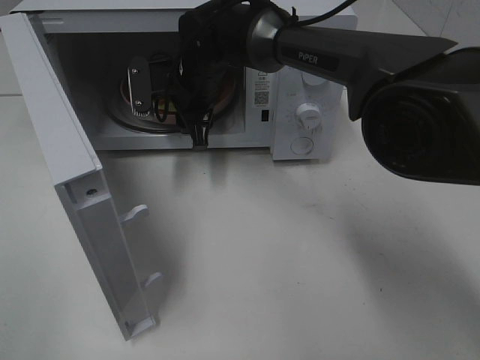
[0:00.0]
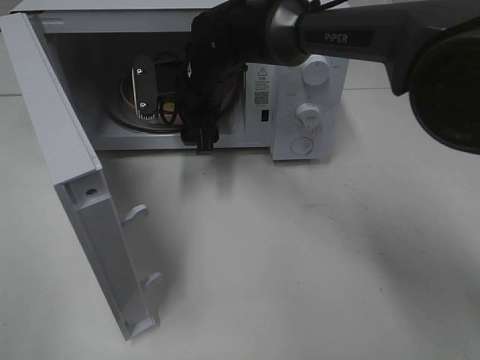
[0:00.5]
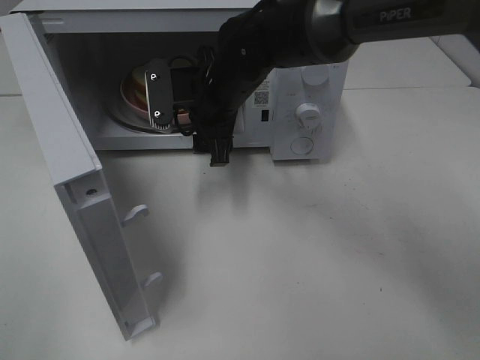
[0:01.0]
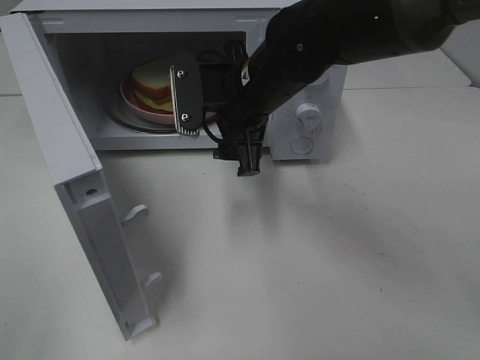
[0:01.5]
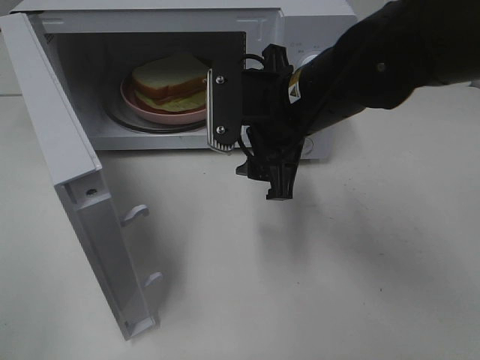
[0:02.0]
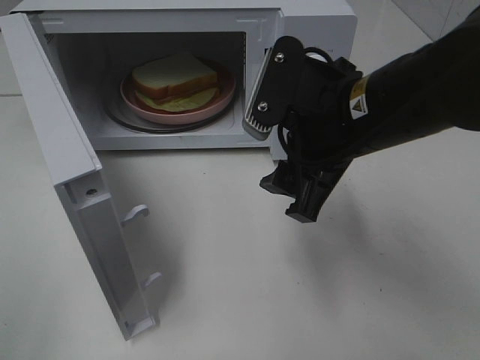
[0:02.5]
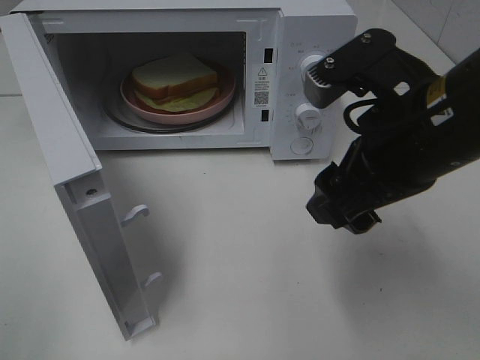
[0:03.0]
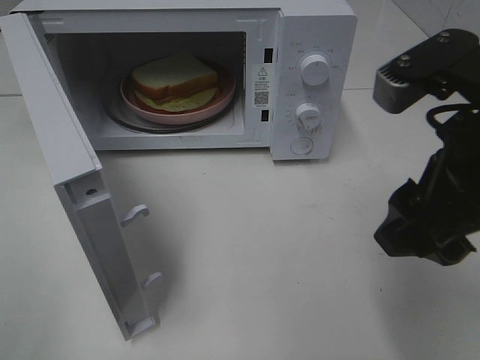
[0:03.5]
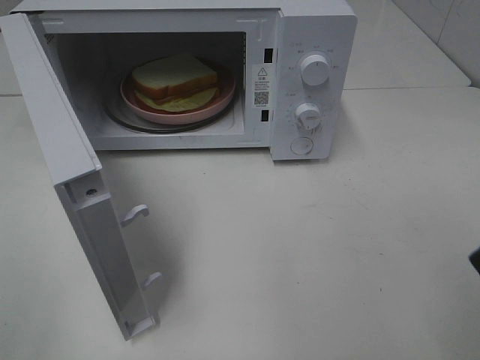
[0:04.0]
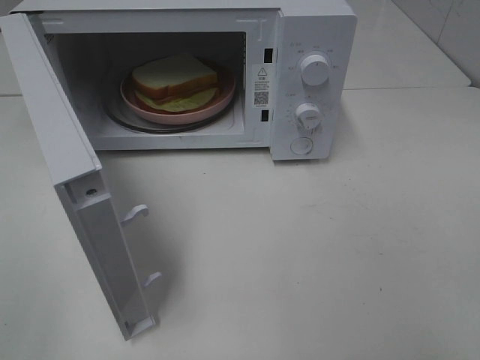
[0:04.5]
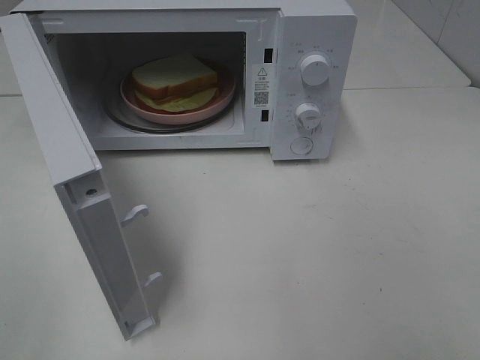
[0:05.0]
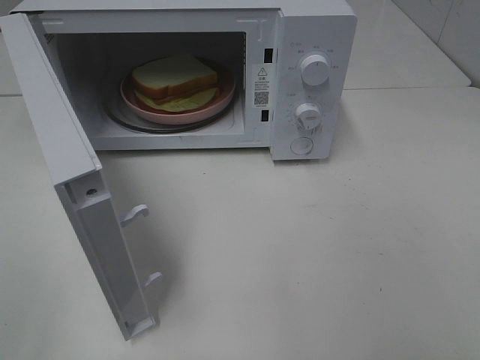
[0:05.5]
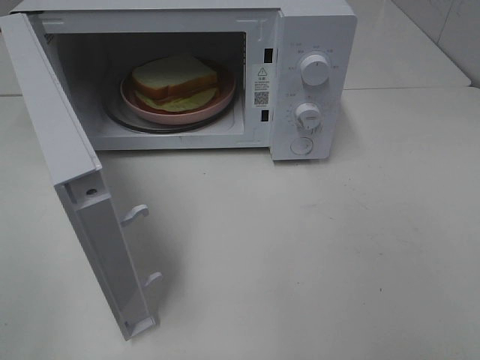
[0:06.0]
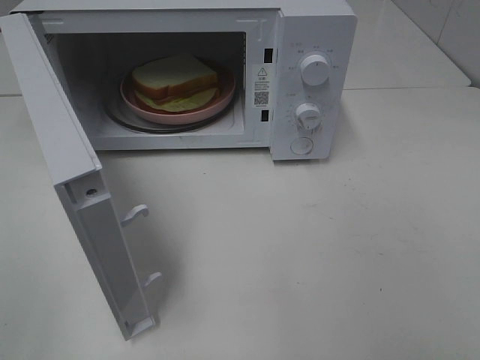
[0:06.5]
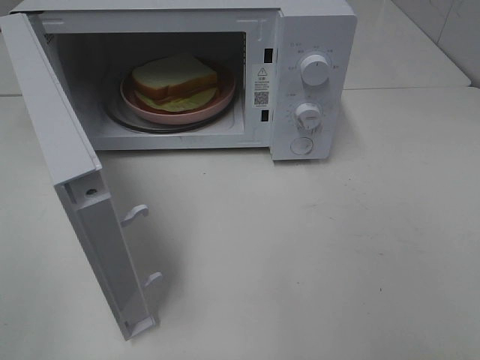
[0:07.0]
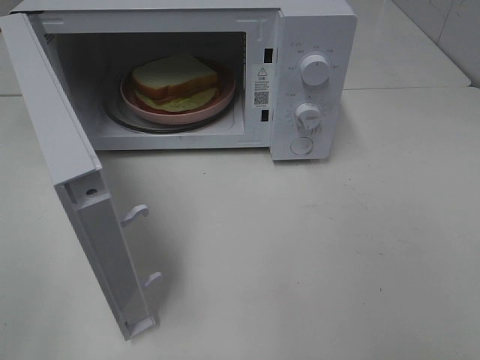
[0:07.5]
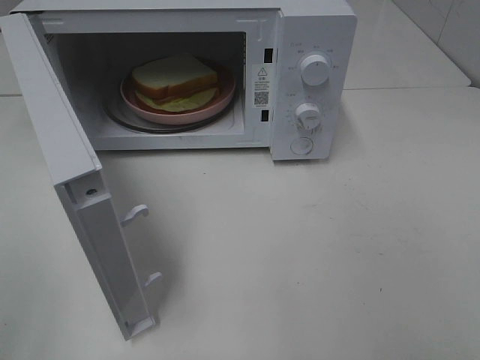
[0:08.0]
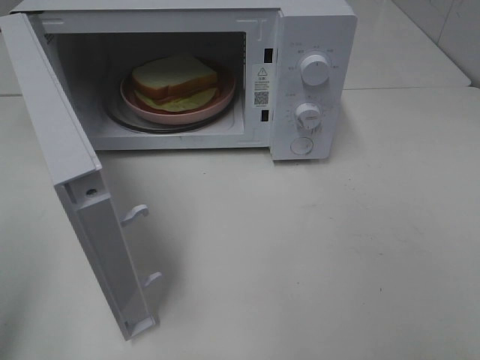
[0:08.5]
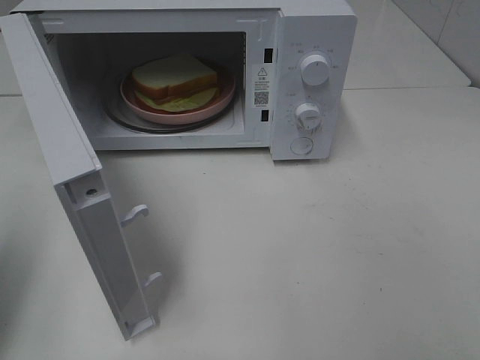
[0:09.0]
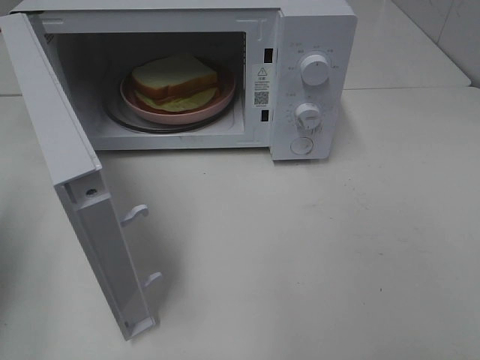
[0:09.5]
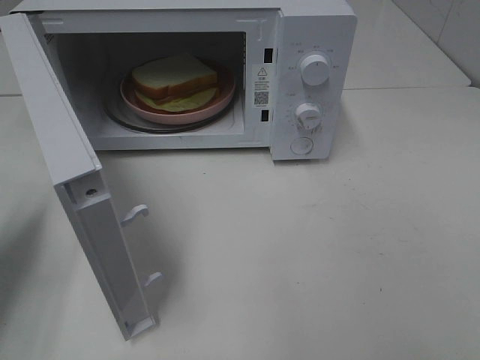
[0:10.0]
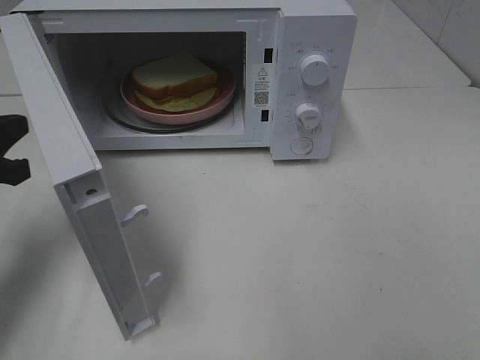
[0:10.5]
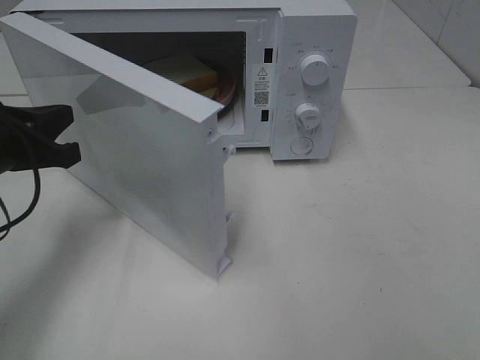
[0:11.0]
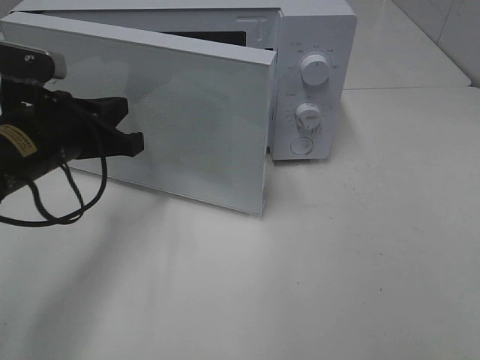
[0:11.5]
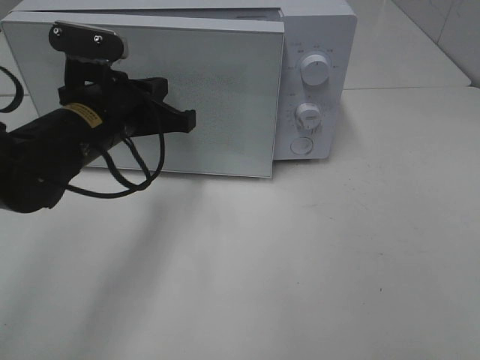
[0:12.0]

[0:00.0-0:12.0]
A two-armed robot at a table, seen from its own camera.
Task of the whole recording: Heat Sandwich.
0:00.0 to 0:02.0: The right gripper heads backward and to the right, covering about 20 cm.
0:02.0 to 0:04.0: The right gripper travels backward, to the right and upward by about 25 cm.
0:04.0 to 0:06.0: The right gripper goes approximately 15 cm backward and to the right.
0:08.0 to 0:10.0: The left gripper goes roughly 20 cm forward and downward, and closes up.
0:10.0 to 0:12.0: The left gripper goes approximately 20 cm to the right and forward.

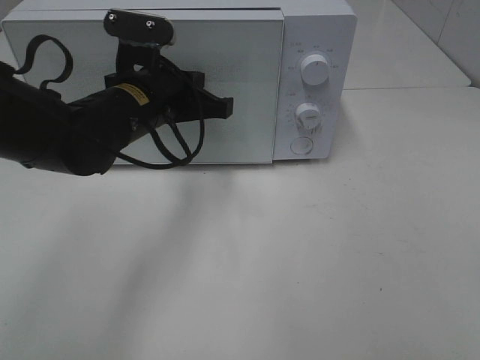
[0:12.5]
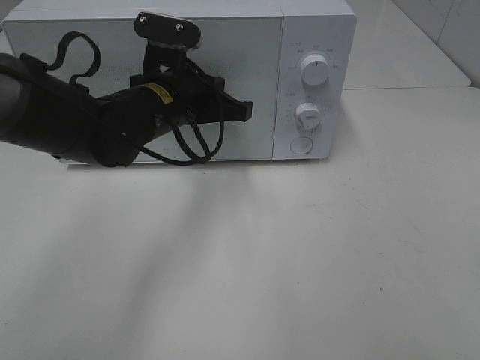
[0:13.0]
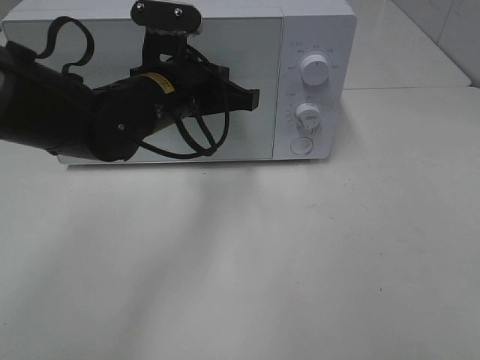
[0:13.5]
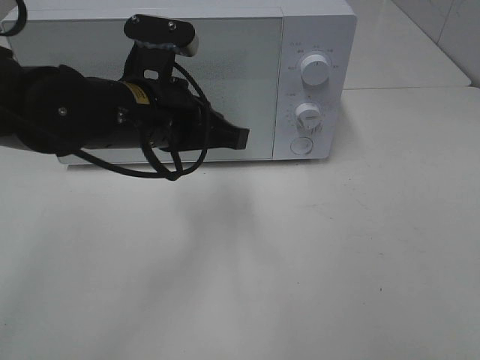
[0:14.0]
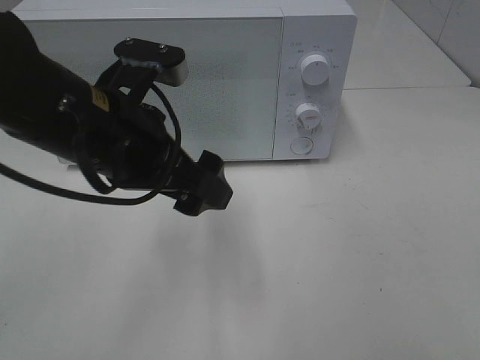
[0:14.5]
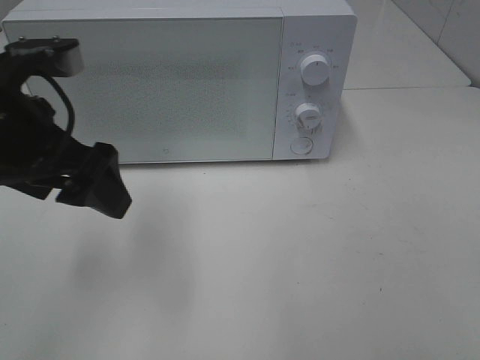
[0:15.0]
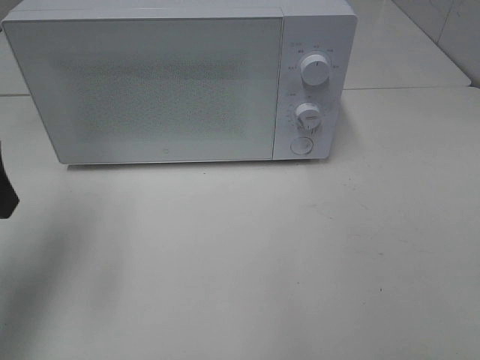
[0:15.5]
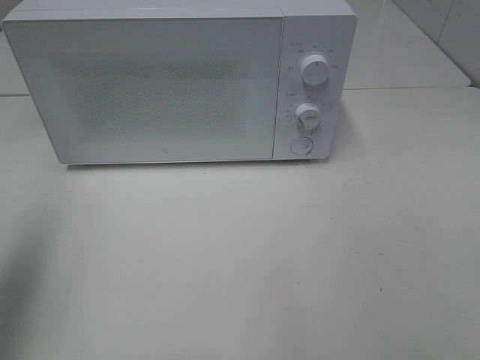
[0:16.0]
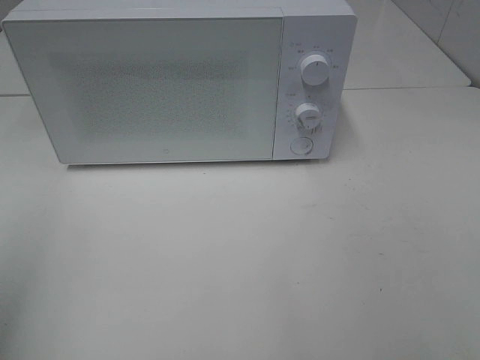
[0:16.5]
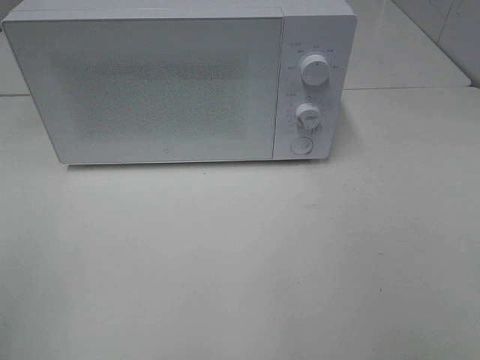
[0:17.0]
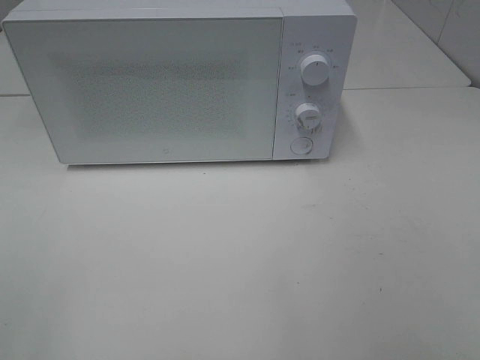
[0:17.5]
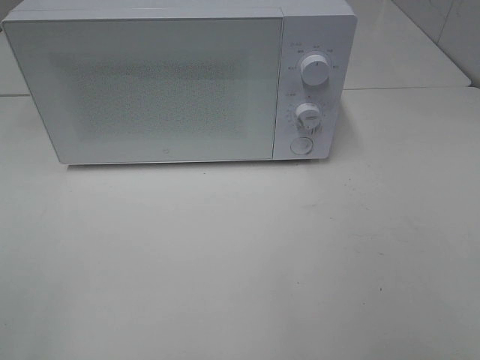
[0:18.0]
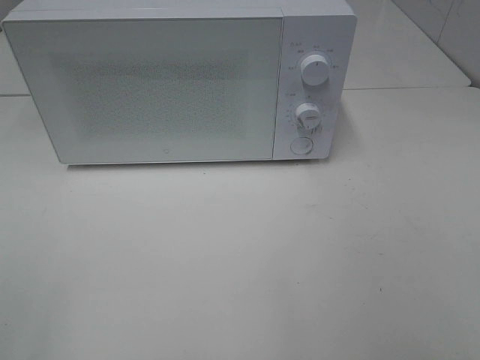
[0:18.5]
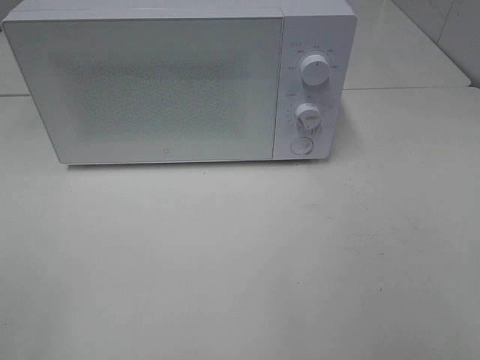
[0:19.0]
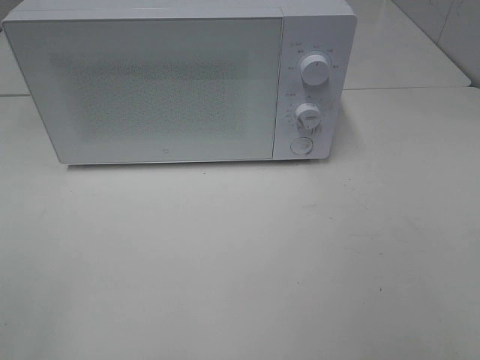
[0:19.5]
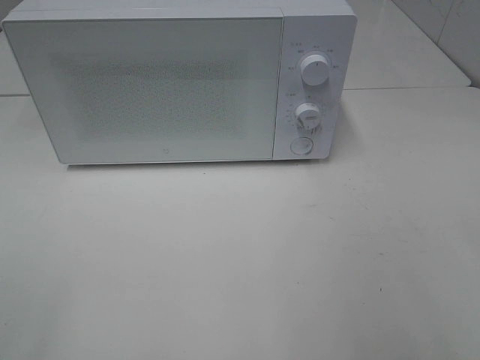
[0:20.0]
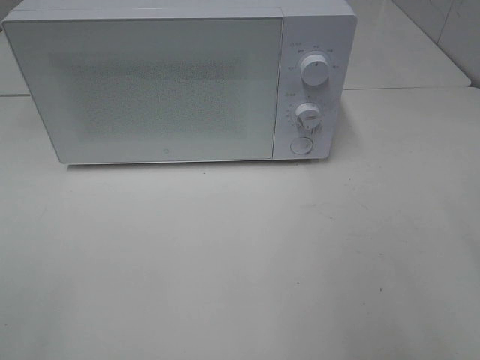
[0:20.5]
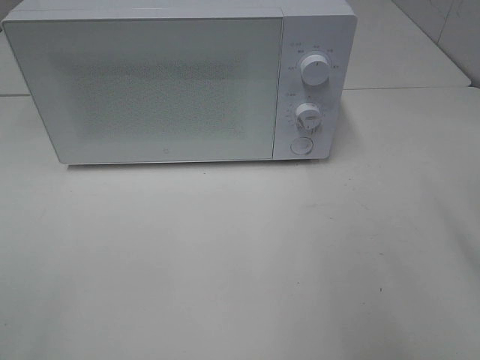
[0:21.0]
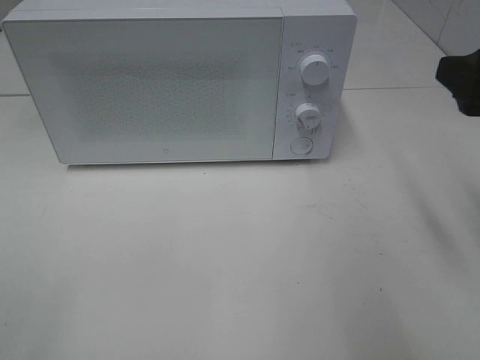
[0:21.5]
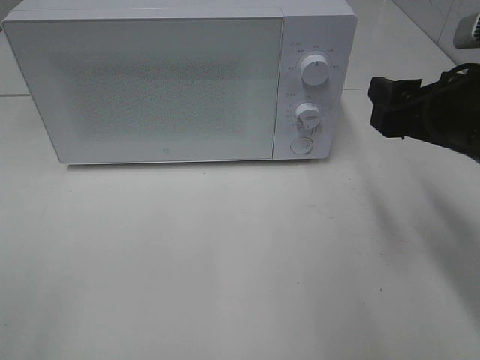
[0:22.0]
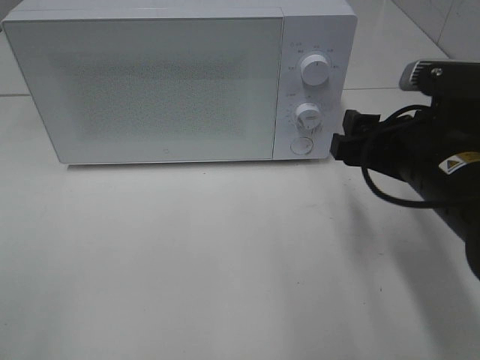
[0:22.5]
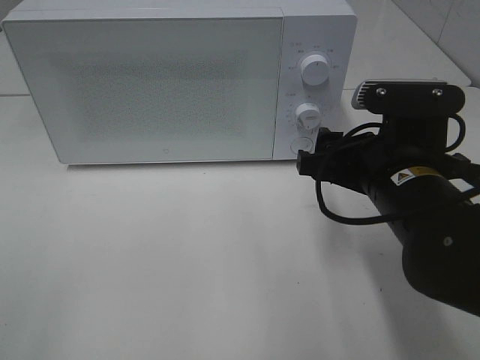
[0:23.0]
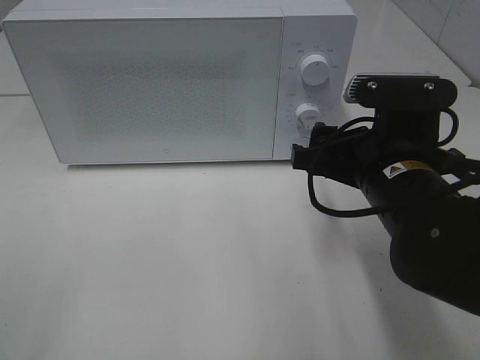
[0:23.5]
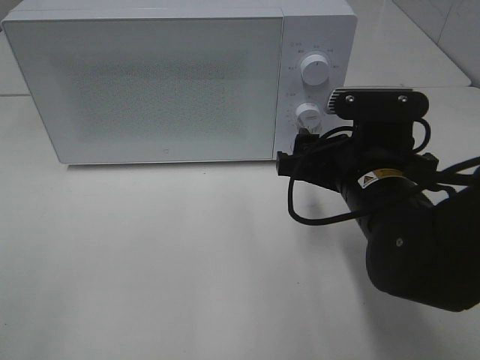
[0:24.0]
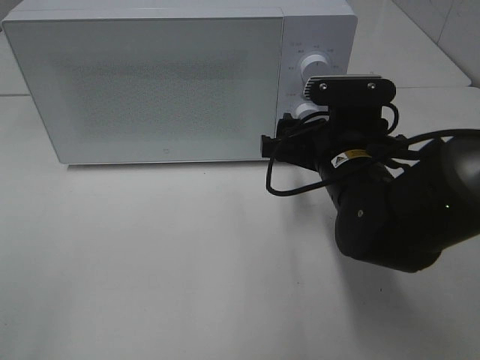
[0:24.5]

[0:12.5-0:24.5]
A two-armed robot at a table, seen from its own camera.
Task of the whole recording: Heat Sandwich.
0:12.5 to 0:14.5: The left gripper heads backward and upward, covering some 10 cm, and opens its fingers.
0:14.5 to 0:16.5: The left gripper travels to the left and backward by roughly 25 cm.
0:20.5 to 0:22.5: The right gripper shifts roughly 20 cm downward, forward and to the left.
0:22.5 to 0:24.5: The right gripper travels to the left and forward by approximately 10 cm.

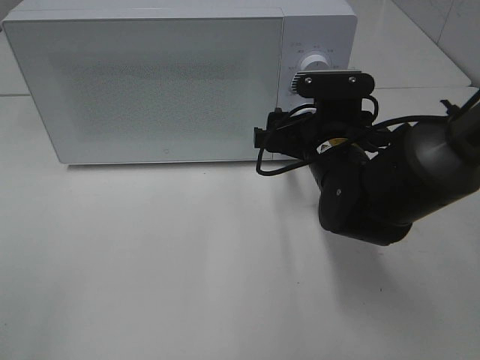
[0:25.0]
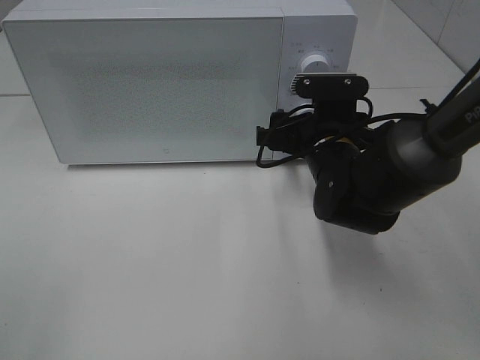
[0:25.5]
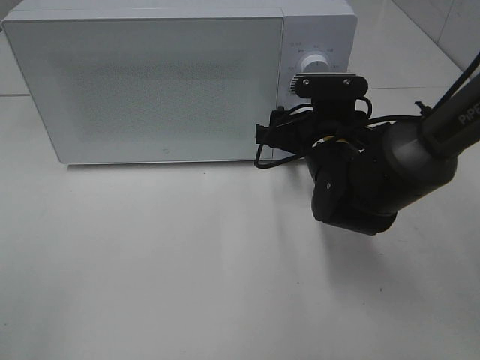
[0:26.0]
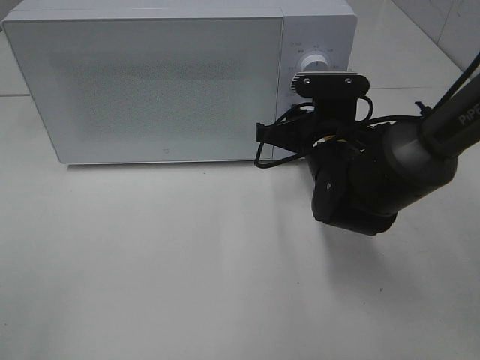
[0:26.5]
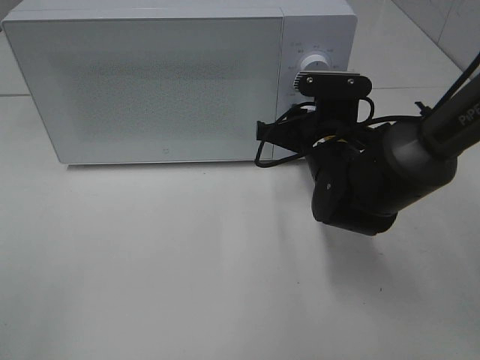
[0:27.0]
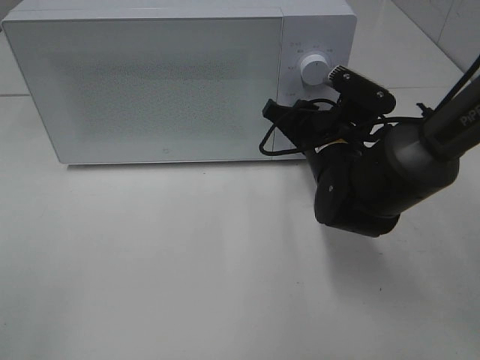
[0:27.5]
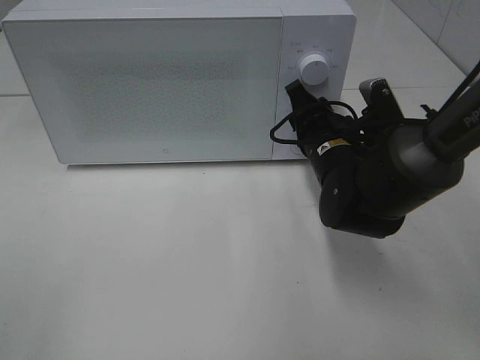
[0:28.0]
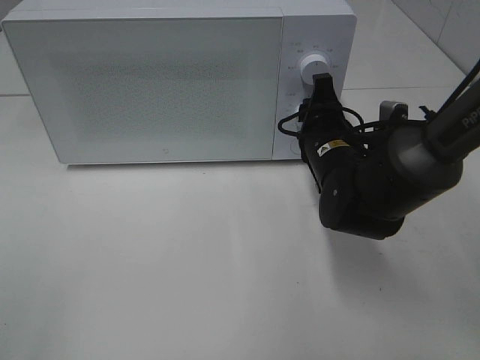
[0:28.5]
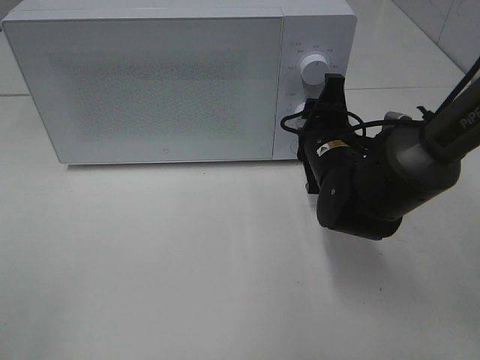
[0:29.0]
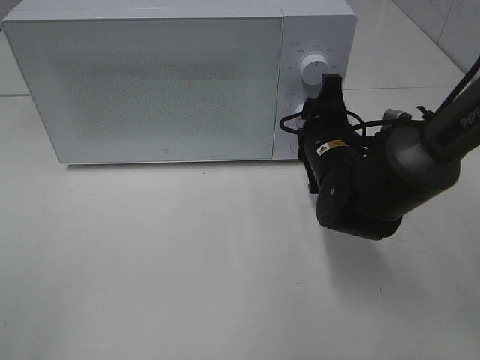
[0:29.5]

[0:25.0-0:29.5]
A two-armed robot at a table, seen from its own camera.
Task of the whole recording: Heat Sandwich.
0:25.0 to 0:27.0: The right gripper closes up.
